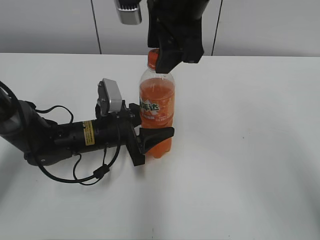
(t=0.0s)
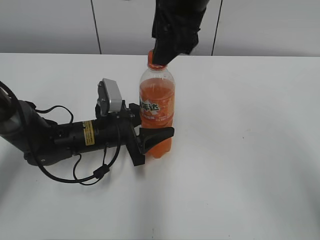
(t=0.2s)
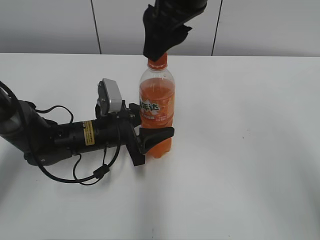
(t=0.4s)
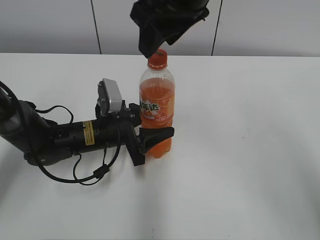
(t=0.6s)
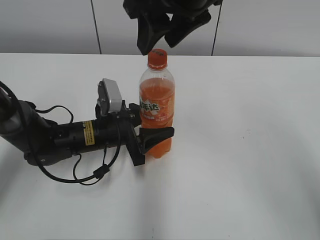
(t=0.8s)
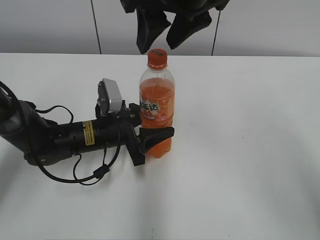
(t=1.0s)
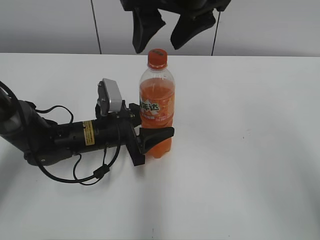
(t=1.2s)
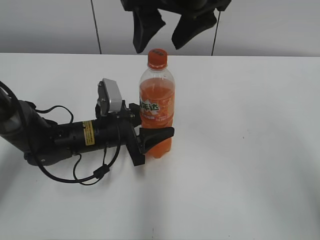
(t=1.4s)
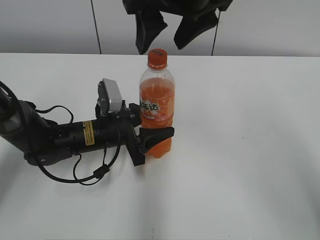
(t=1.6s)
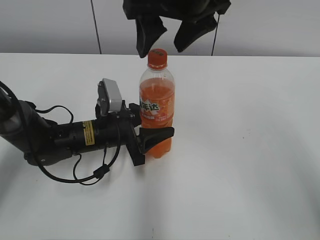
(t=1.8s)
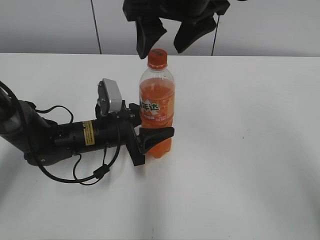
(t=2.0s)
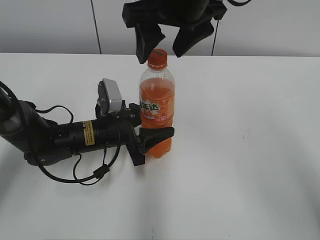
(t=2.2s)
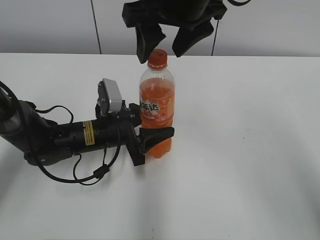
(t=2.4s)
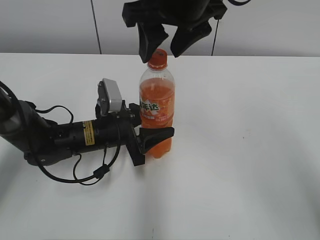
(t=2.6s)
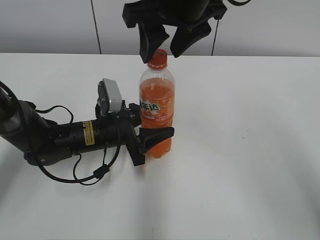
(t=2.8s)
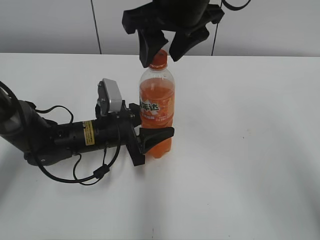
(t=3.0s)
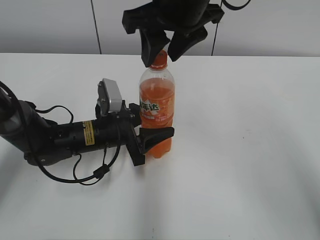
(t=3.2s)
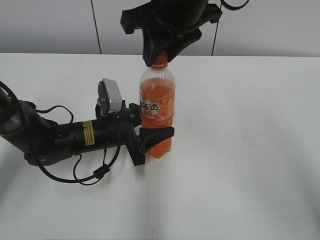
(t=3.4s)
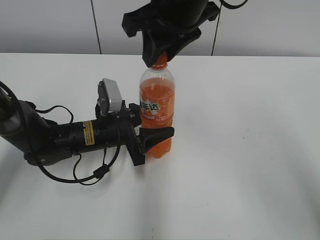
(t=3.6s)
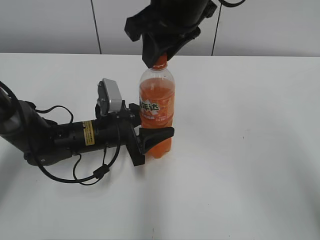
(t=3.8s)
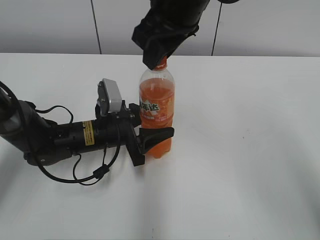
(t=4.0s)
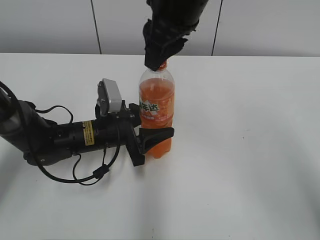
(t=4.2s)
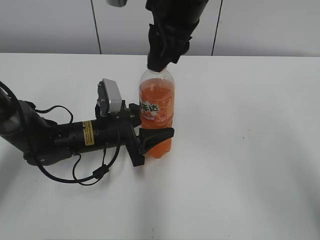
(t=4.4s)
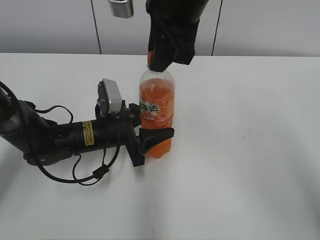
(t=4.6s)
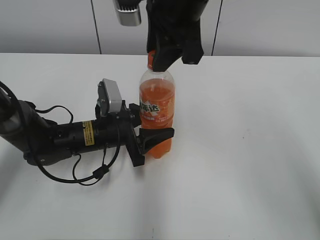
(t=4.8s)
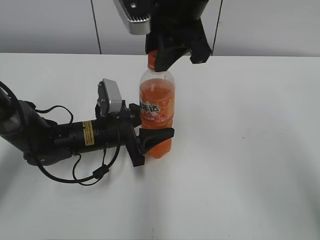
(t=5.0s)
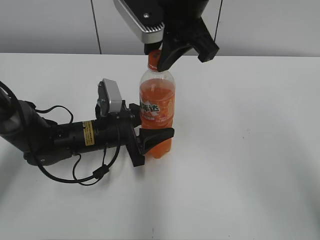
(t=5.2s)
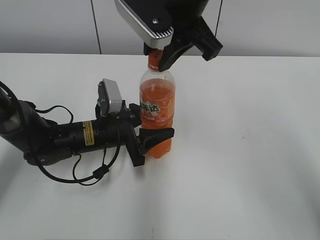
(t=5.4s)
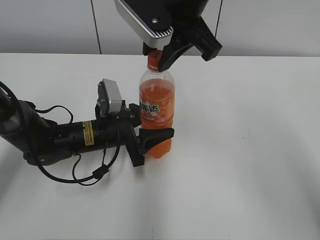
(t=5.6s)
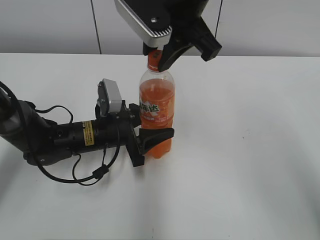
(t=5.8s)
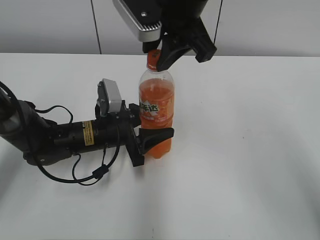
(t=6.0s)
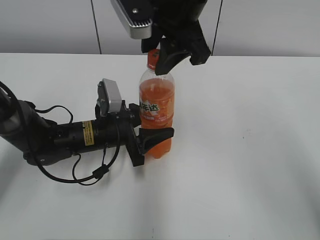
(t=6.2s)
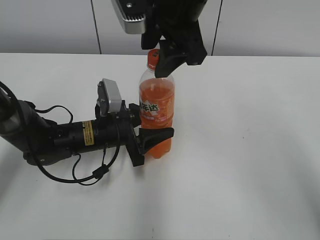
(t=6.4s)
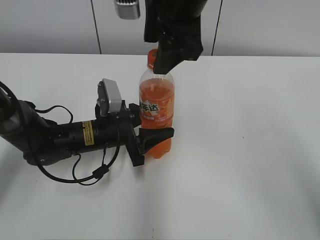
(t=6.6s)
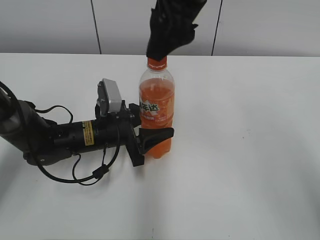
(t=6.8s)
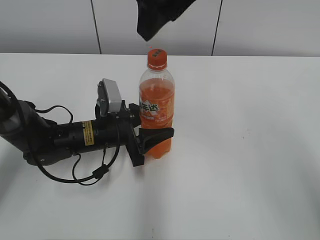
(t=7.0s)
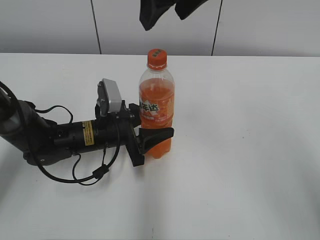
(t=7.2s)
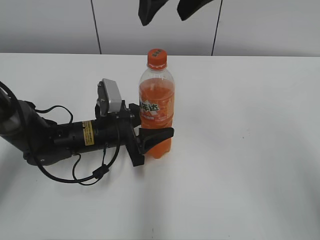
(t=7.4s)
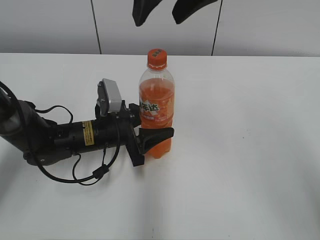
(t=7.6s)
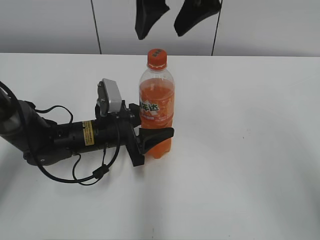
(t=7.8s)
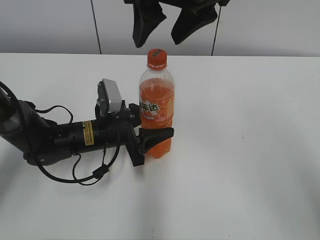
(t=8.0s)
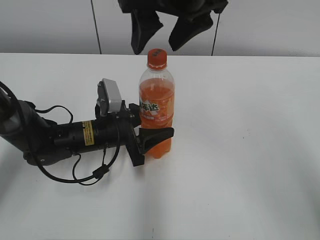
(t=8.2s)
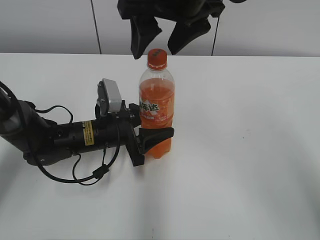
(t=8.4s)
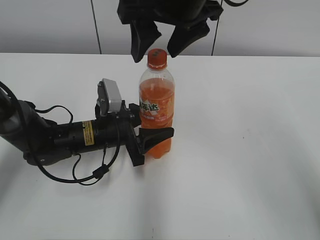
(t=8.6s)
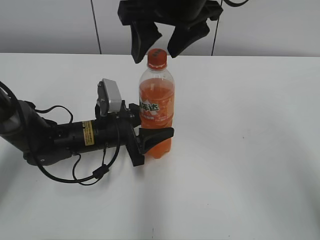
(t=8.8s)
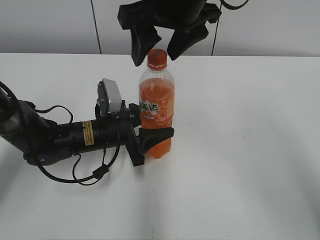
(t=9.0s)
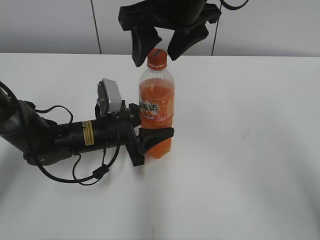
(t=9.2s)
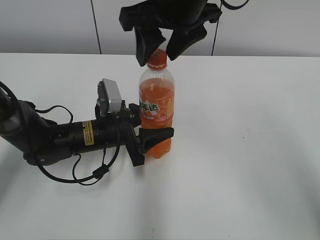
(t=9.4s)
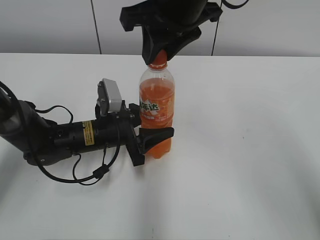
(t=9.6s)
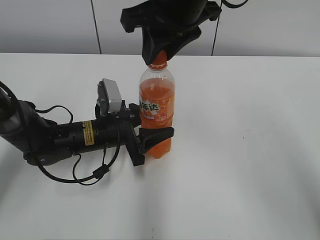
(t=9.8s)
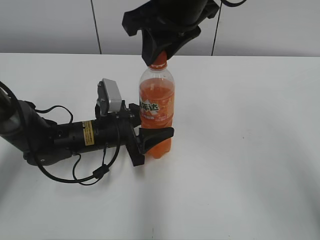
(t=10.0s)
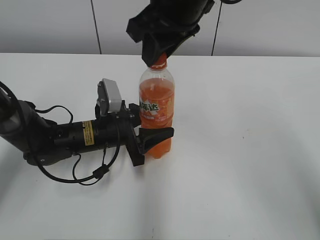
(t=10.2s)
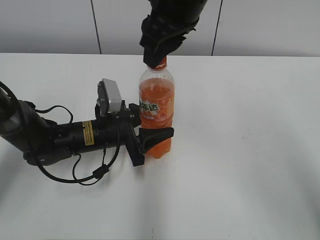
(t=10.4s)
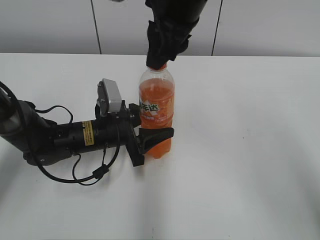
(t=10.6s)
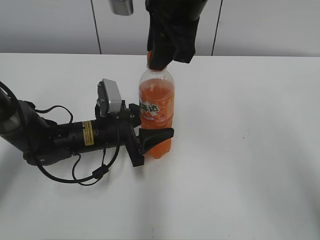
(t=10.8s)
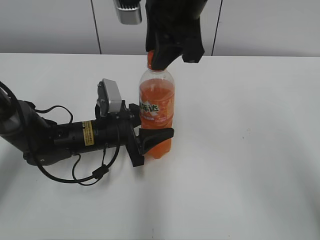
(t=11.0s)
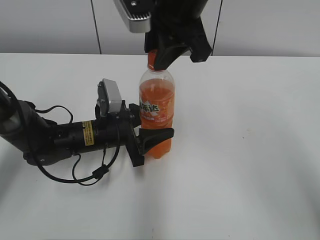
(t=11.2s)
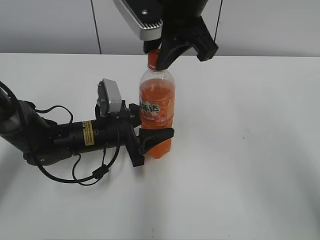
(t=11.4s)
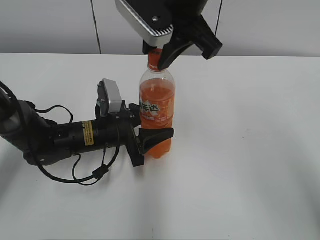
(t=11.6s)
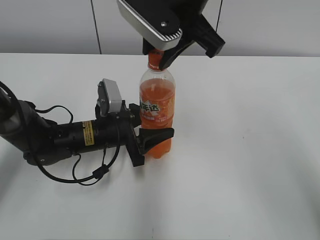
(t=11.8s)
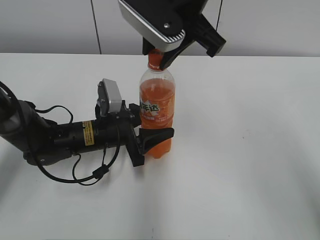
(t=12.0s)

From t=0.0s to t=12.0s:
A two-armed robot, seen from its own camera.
From t=0.0s to t=1.6s: The right gripper opens its fingers.
From t=1.6s to t=3.0s: There are only small adjustments of the grippers.
From t=3.0s to t=4.4s: The right gripper closes up.
From t=6.0s to t=7.6s: The right gripper travels upward by about 5 cm, and opens.
From t=7.6s to t=9.0s: The right gripper shifts some 5 cm downward.
From t=9.0s to t=10.4s: The right gripper closes up.

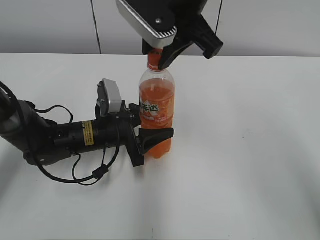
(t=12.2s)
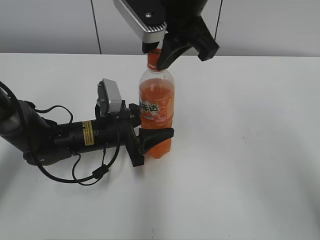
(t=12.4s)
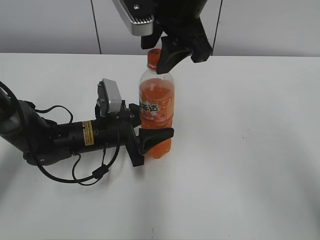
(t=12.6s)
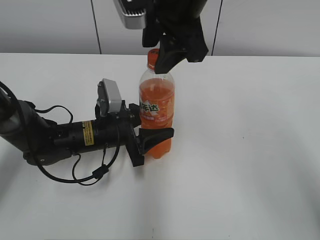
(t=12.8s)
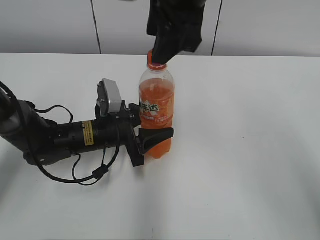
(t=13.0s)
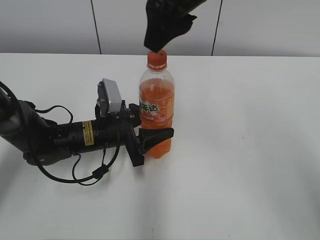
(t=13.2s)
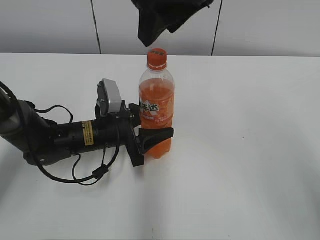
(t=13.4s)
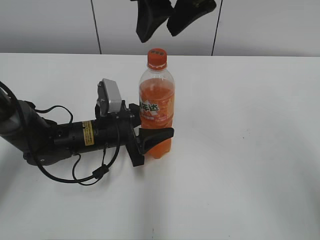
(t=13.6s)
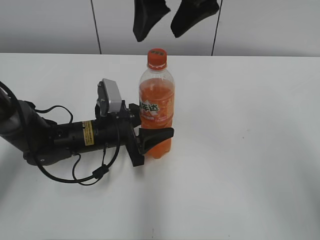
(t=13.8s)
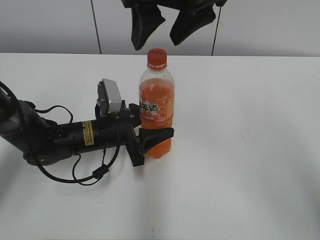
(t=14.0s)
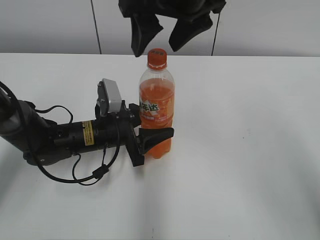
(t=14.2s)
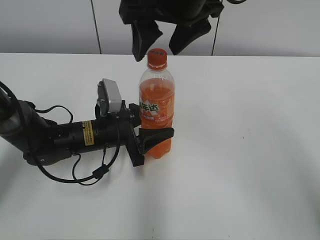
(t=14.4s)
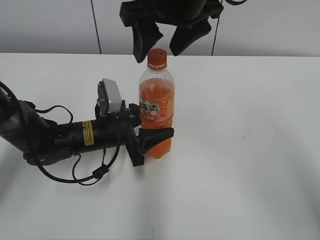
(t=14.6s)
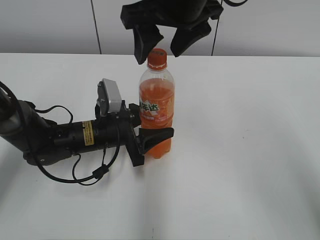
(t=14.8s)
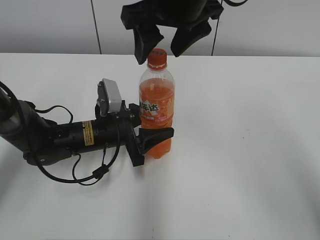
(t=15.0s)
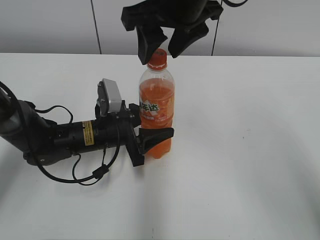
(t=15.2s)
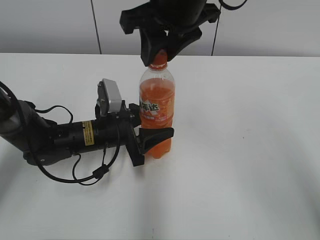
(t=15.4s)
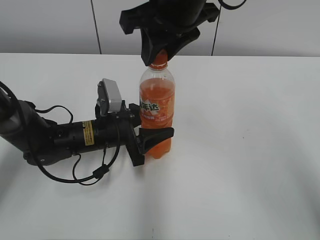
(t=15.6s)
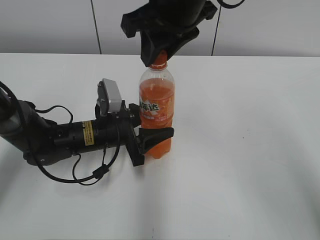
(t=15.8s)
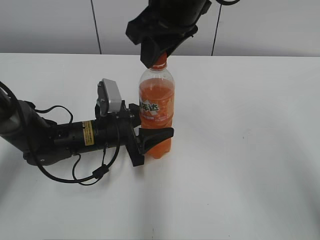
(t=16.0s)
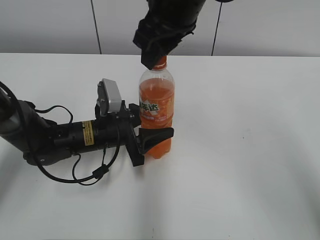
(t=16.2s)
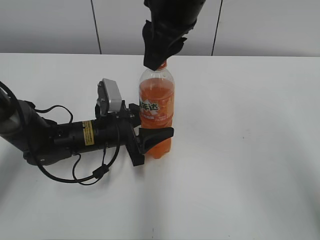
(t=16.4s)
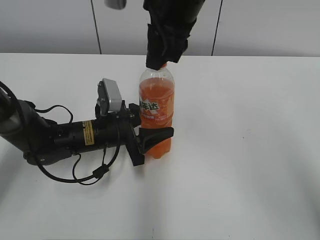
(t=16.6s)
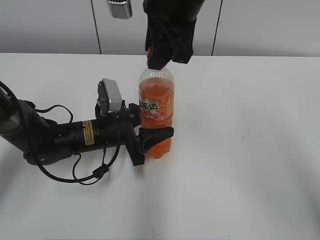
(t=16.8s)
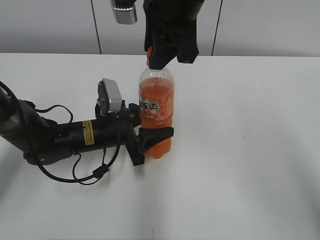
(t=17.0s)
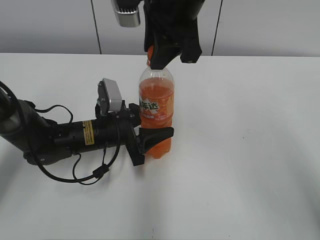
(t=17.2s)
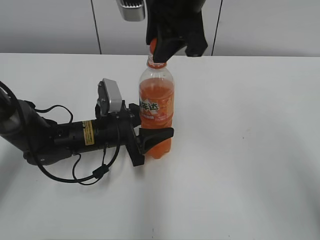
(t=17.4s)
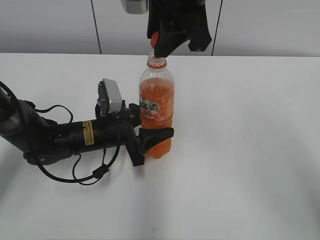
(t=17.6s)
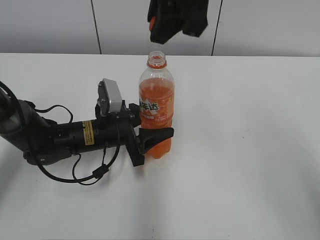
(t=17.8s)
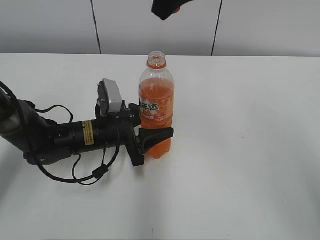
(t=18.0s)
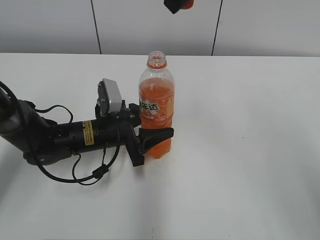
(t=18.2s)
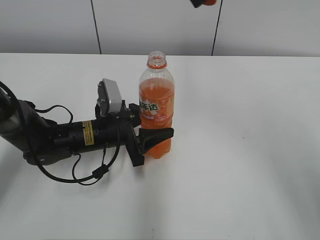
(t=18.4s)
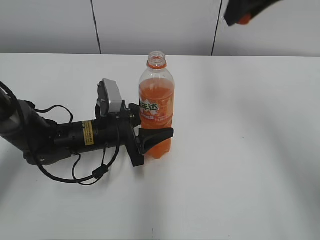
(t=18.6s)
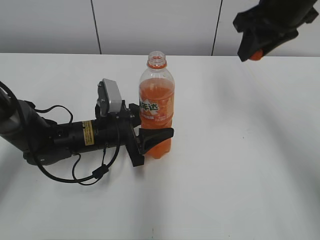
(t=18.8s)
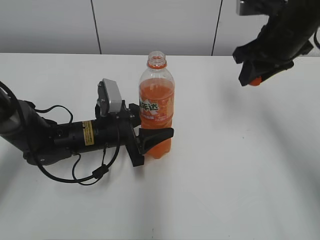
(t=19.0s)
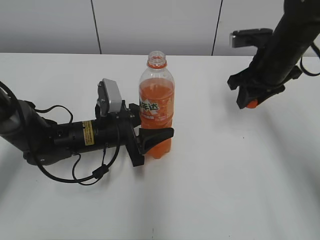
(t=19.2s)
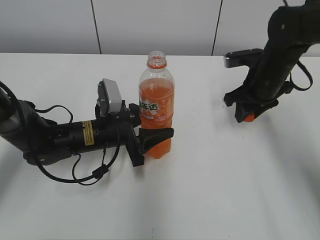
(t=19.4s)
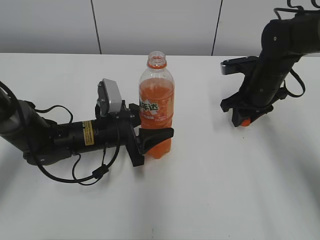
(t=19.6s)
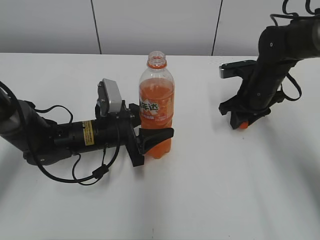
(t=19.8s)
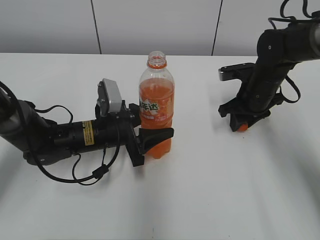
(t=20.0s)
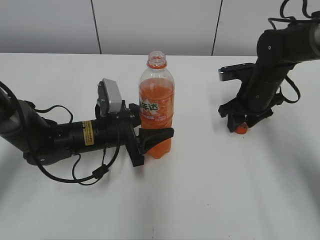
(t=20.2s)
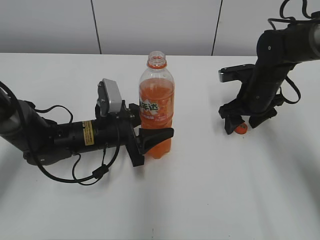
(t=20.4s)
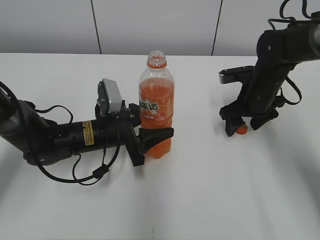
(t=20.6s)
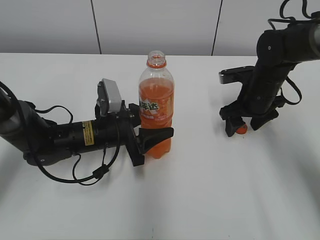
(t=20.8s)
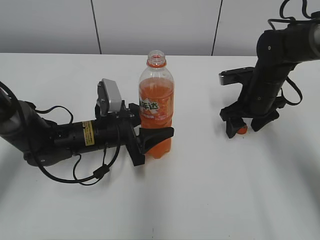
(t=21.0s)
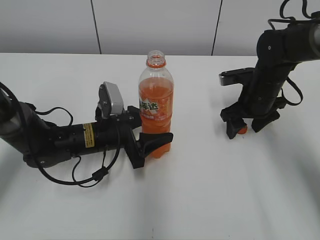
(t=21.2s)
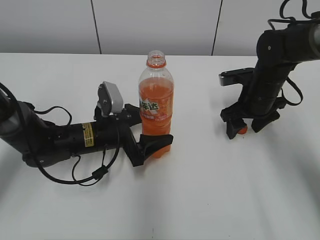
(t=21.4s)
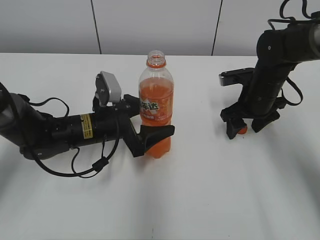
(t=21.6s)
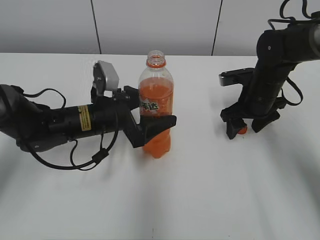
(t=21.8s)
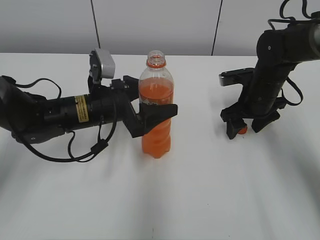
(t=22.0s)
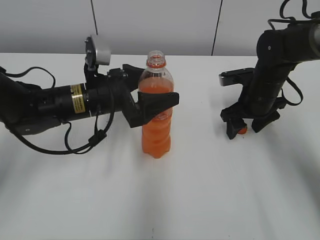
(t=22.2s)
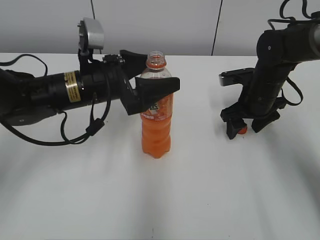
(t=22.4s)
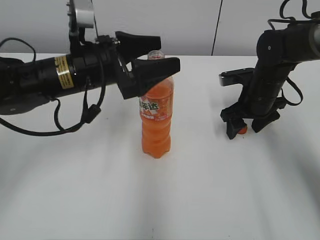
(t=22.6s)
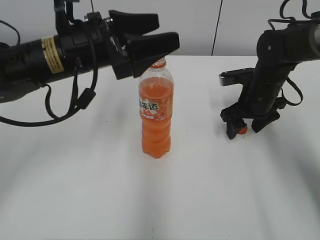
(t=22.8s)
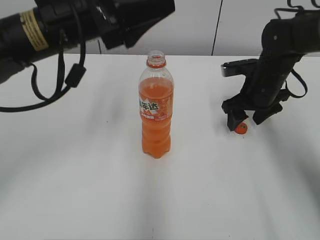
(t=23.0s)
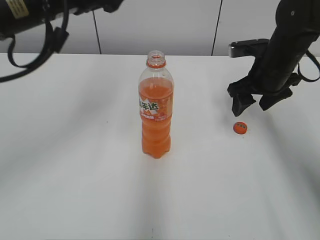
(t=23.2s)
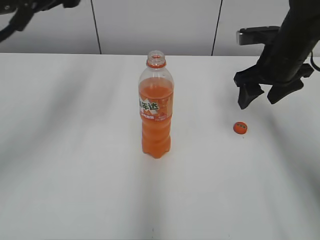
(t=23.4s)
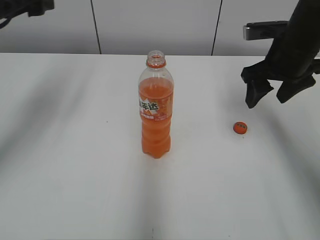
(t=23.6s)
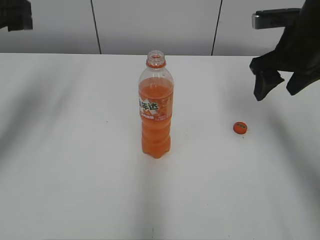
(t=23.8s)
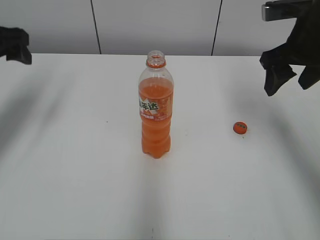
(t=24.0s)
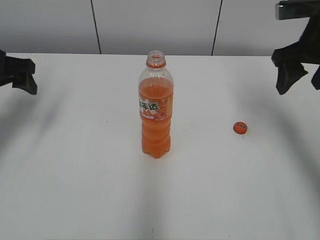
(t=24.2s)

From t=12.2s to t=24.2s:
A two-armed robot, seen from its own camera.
Step, from t=17.6s to t=20.0s: Place the bottle cap on the right.
Step, from t=20.2s to t=21.0s: Place the Mirinda with the left hand.
From t=12.2s to t=13.8s: The right gripper opens its fingers.
From t=13.8s to t=15.2s: The grippers move only a little.
From t=15.2s to t=16.6s: The right gripper closes its fingers.
From t=16.6s to t=18.2s: The right gripper is displaced upward by some 5 cm.
From t=18.2s to t=19.8s: The right gripper shifts approximately 30 cm downward and to the right.
From t=19.8s to t=21.2s: The right gripper opens.
From t=21.2s to t=22.6s: The left gripper is displaced upward by roughly 15 cm, and opens.
From t=22.6s to t=24.2s: The right gripper travels upward by roughly 15 cm; the left gripper is displaced to the left by about 20 cm.
